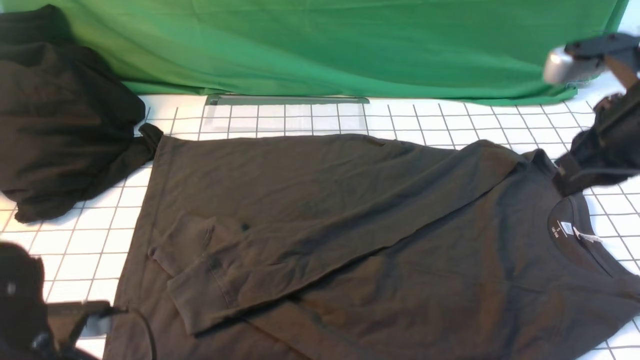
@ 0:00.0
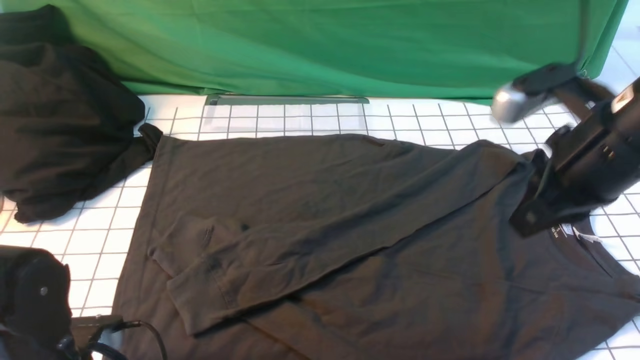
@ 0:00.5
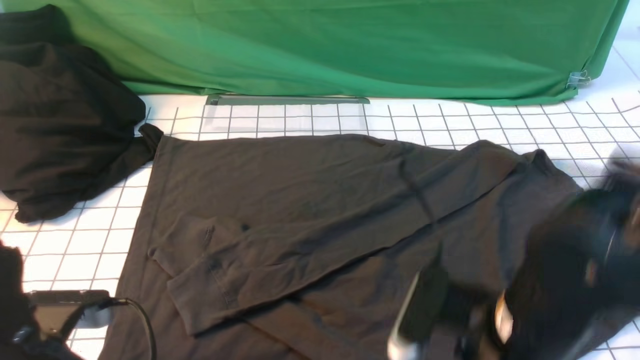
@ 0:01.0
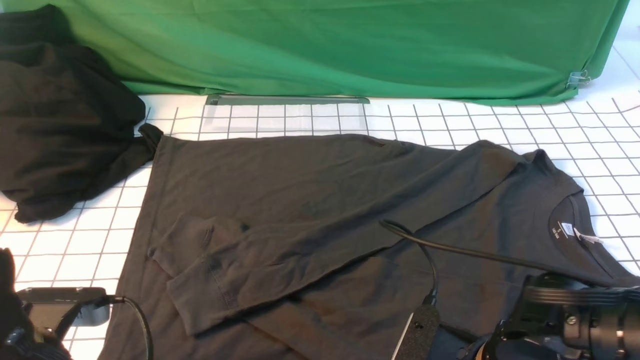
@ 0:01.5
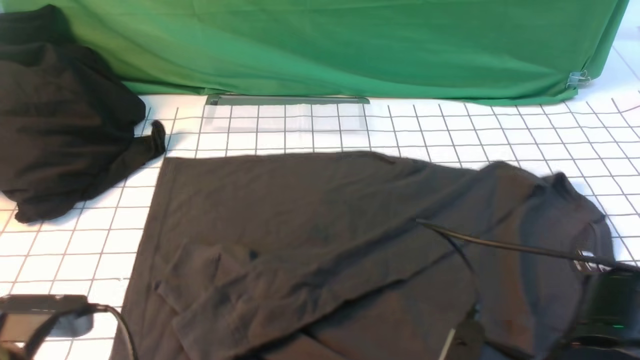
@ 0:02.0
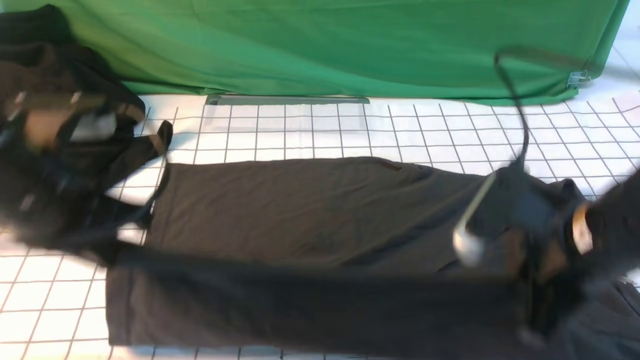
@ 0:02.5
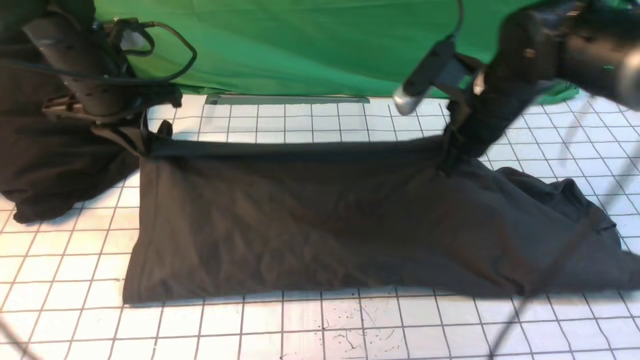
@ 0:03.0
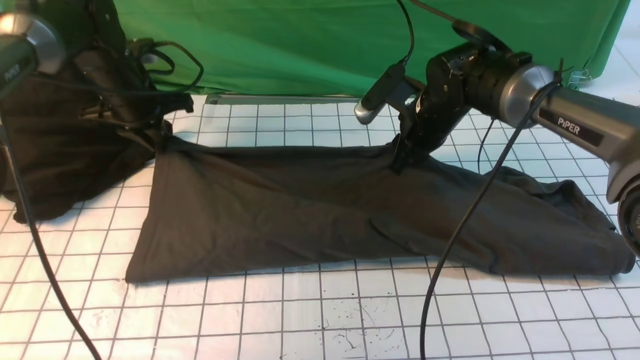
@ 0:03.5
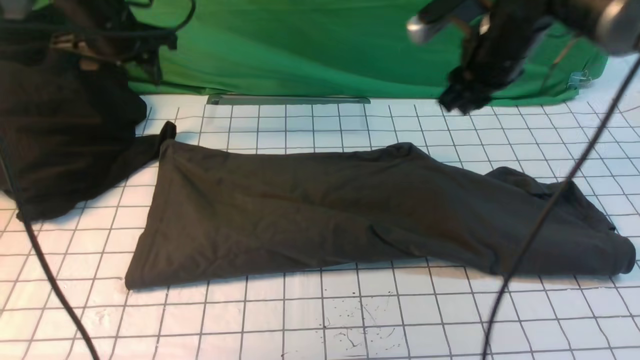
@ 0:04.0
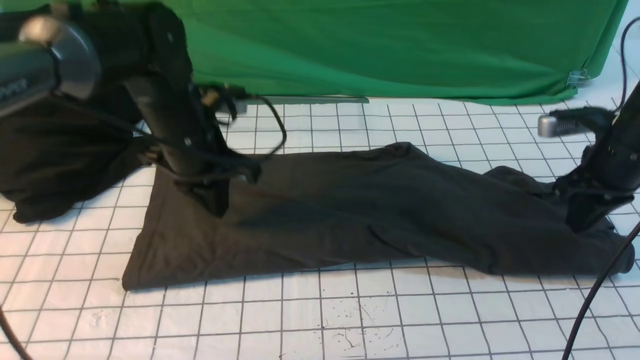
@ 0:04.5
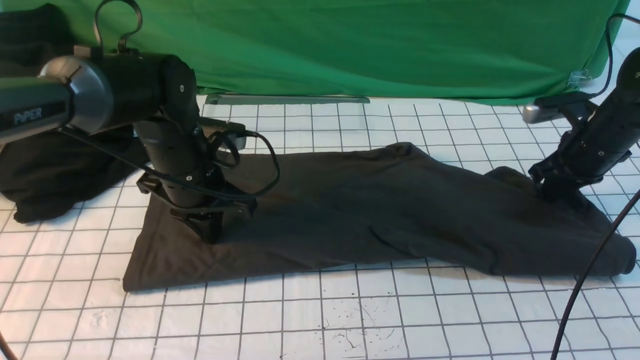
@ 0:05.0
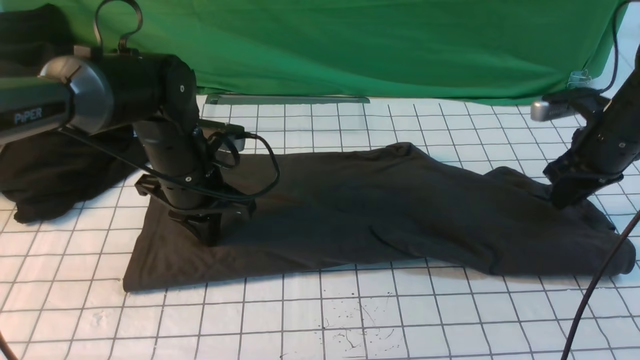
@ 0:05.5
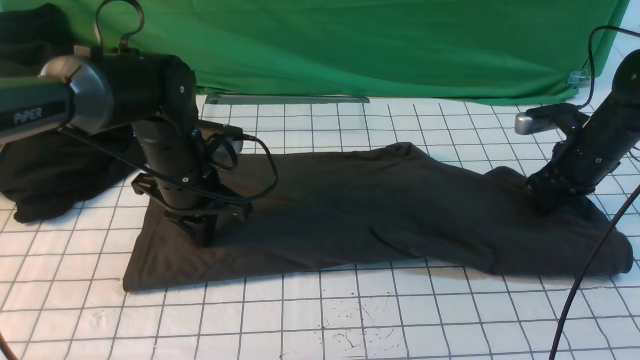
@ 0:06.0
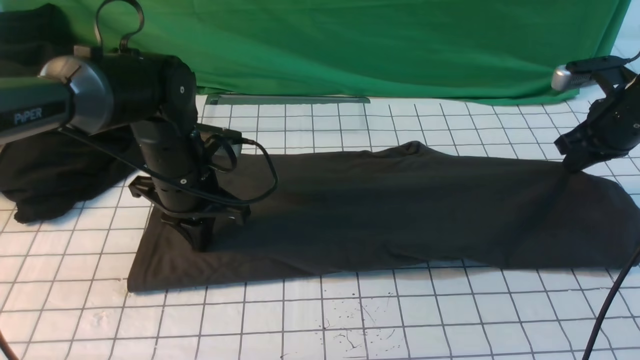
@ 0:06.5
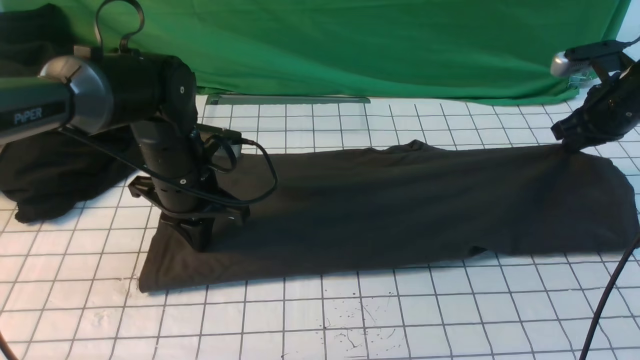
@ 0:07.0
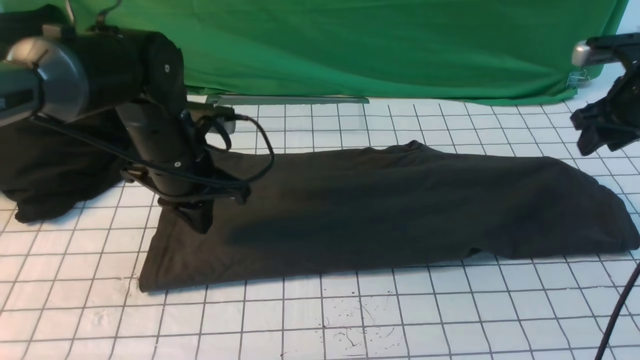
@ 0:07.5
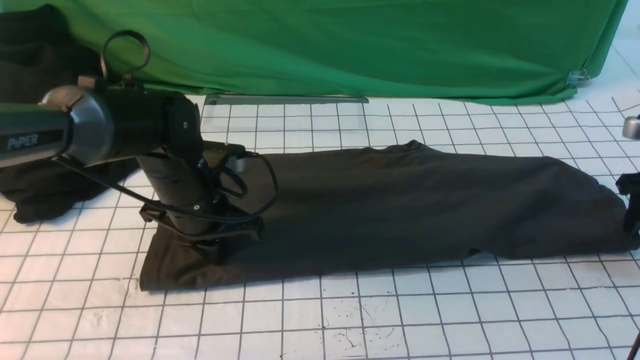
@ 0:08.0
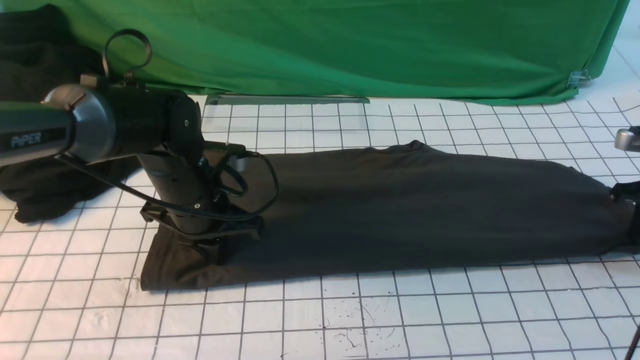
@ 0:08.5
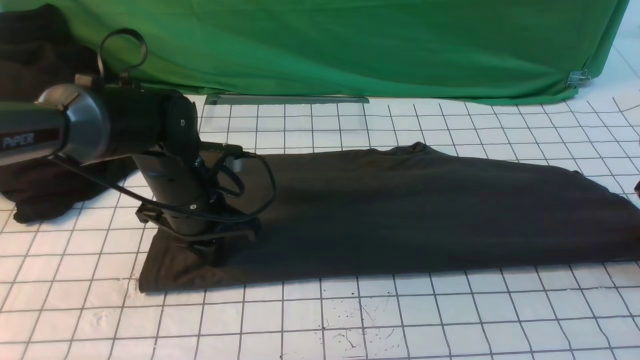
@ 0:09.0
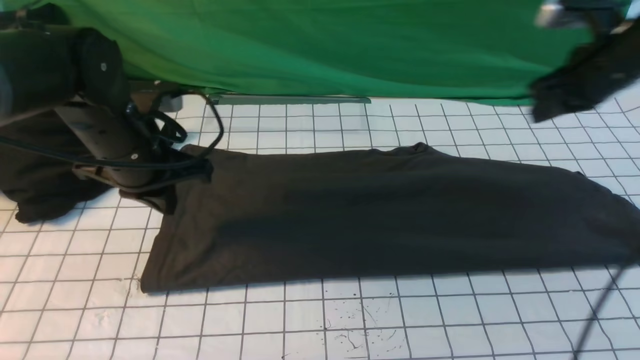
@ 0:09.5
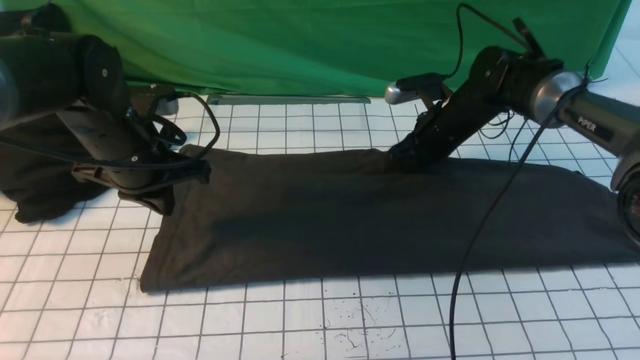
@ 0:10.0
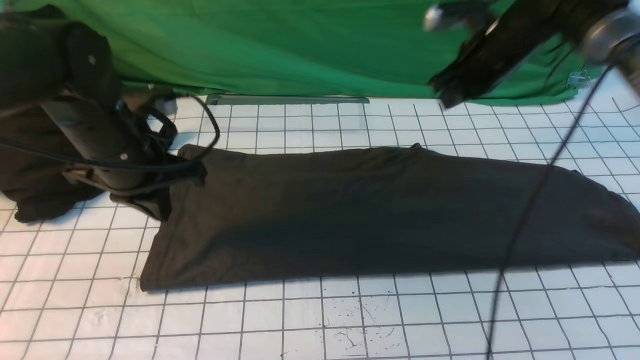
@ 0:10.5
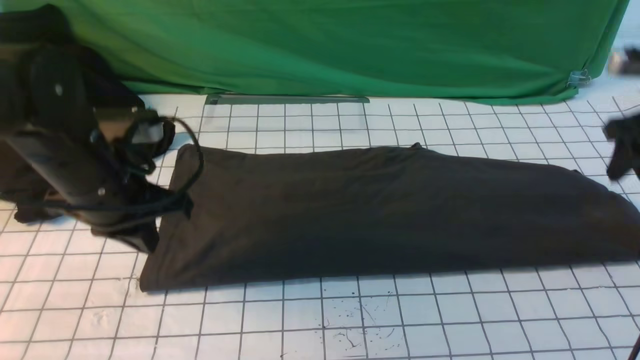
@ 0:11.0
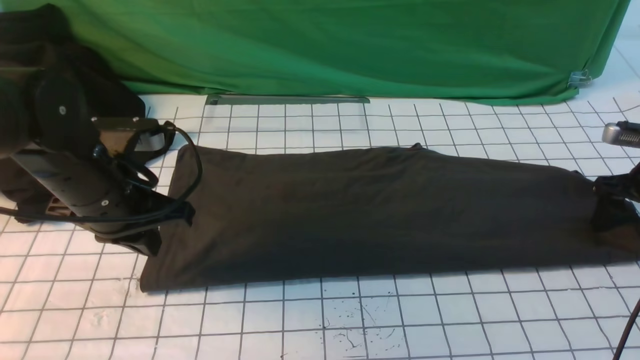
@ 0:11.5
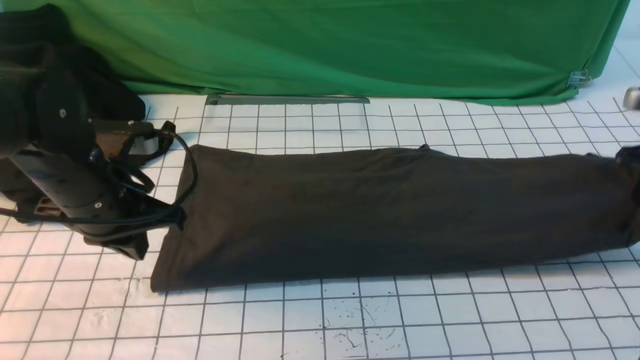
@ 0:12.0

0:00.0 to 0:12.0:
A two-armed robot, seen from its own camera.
Step, 0:02.0 to 0:03.5: use both arms to drag the lower edge of the fabric forward and fold it over the upper edge.
Step, 0:04.0 to 0:11.5: use the right arm to clamp the right edge of the fabric.
0:00.0 to 0:02.0: The left gripper moves upward, roughly 5 cm, and closes up, while the right gripper heads backward, downward and to the left, covering some 25 cm, and opens, then closes once more.
0:02.0 to 0:04.0: Both grippers move forward, about 35 cm. The right gripper opens its fingers. Meanwhile the left gripper opens up.
0:04.0 to 0:06.0: The right gripper goes approximately 15 cm to the right and downward. Meanwhile the left gripper shifts roughly 15 cm backward, downward and to the right, and closes up.
0:06.0 to 0:08.0: The right gripper heads to the right, covering about 10 cm, and opens.
0:08.0 to 0:10.0: The right gripper is displaced to the left and forward by about 25 cm, and closes up. Meanwhile the left gripper moves upward and to the left, roughly 10 cm.
0:10.0 to 0:12.0: The left gripper shifts about 5 cm backward; the right gripper travels to the right and backward by roughly 25 cm, and opens, then closes once more.

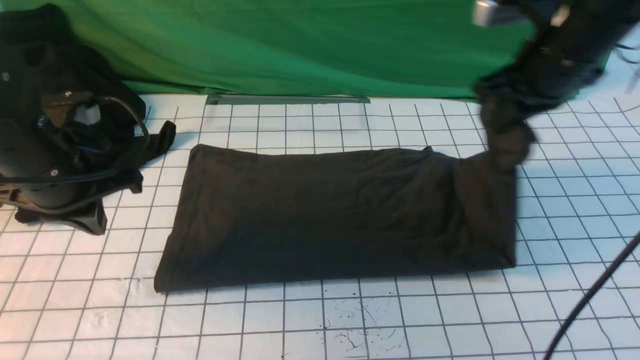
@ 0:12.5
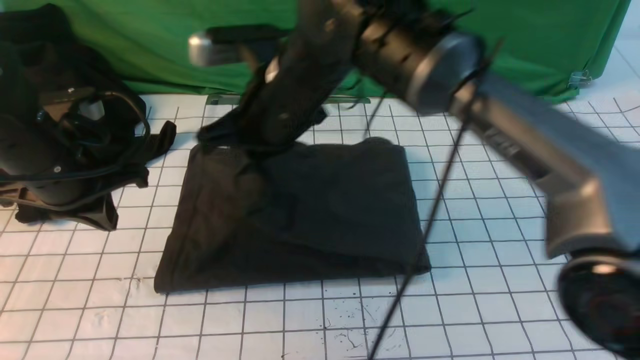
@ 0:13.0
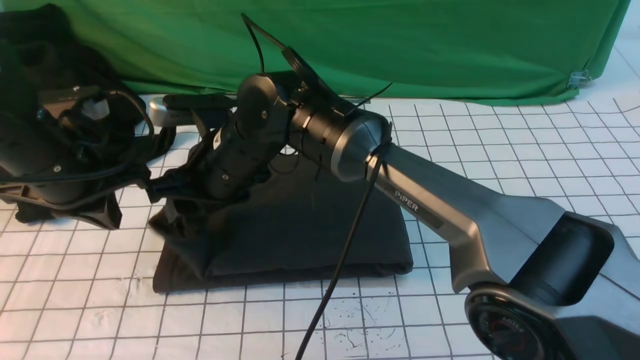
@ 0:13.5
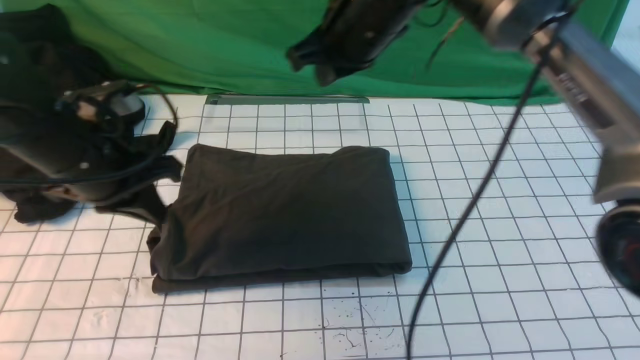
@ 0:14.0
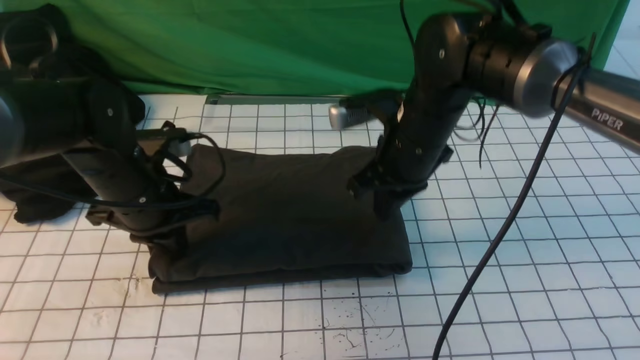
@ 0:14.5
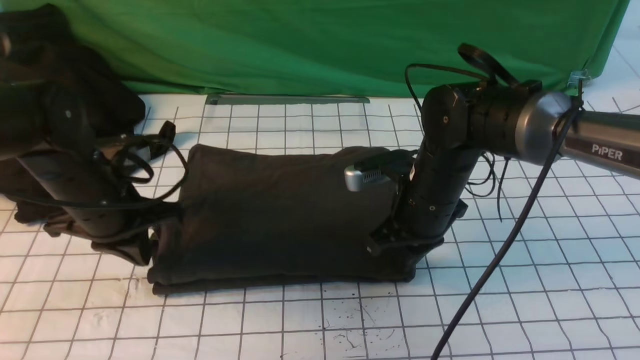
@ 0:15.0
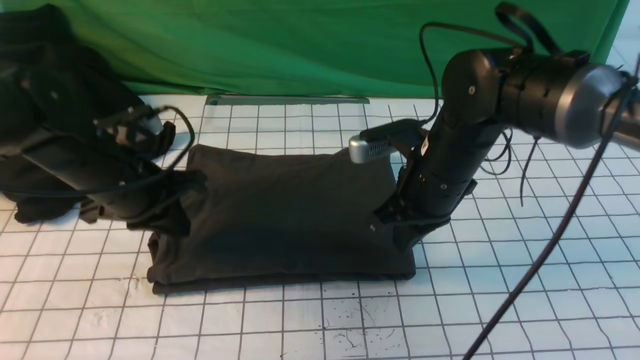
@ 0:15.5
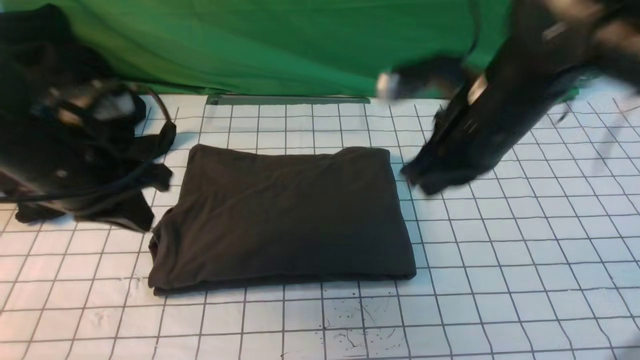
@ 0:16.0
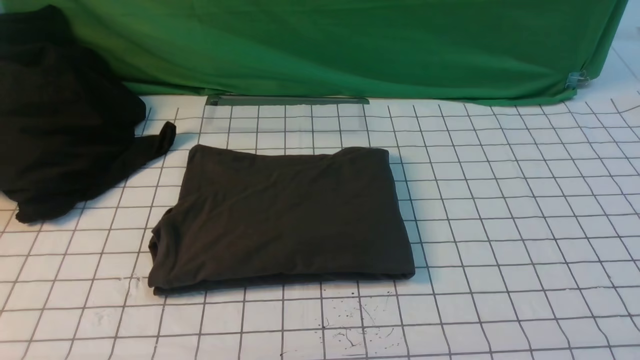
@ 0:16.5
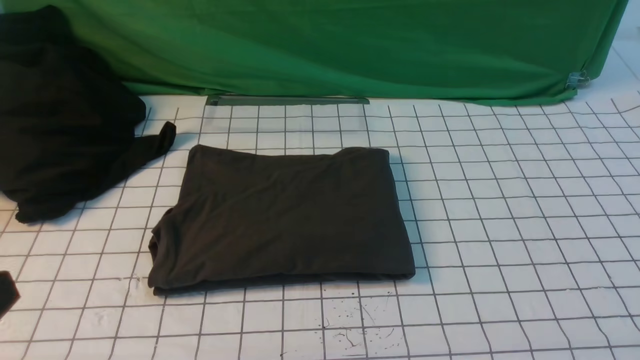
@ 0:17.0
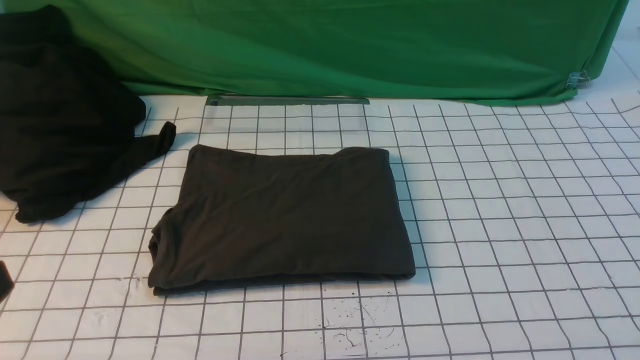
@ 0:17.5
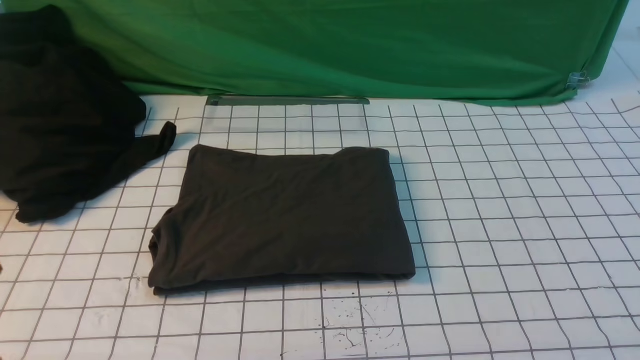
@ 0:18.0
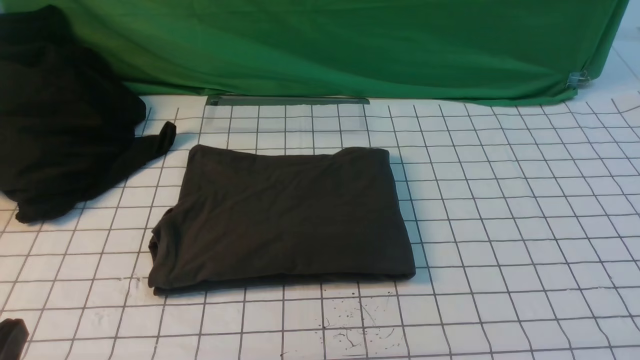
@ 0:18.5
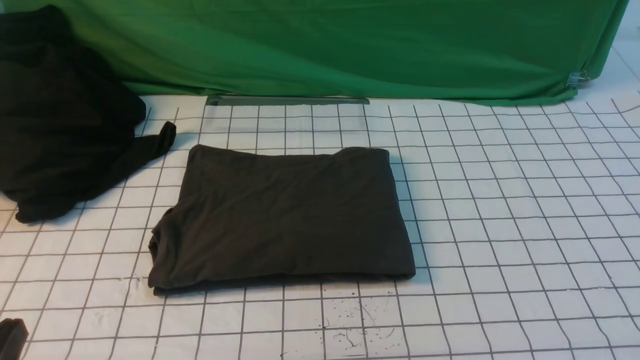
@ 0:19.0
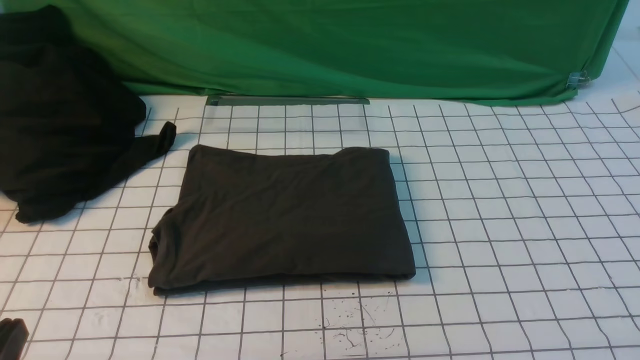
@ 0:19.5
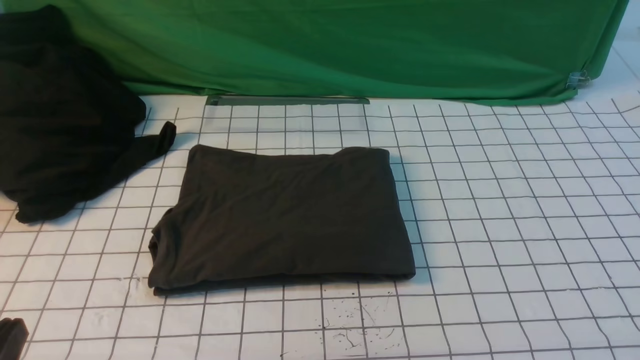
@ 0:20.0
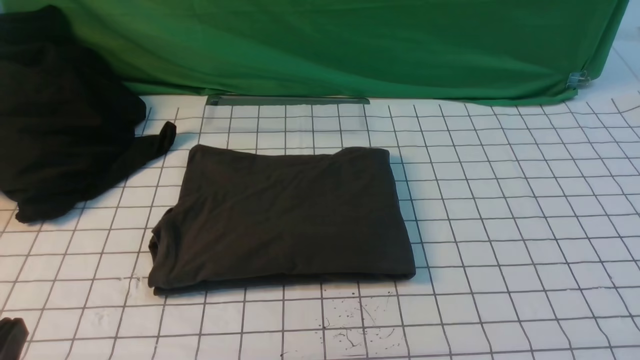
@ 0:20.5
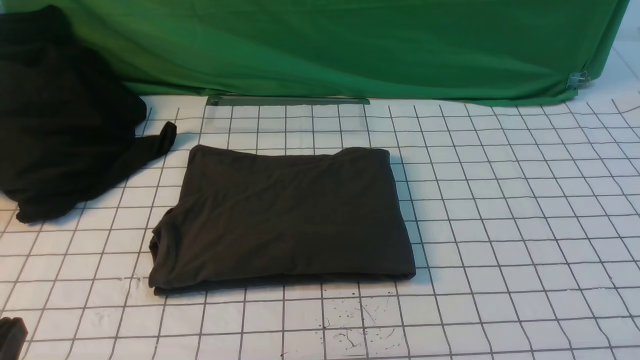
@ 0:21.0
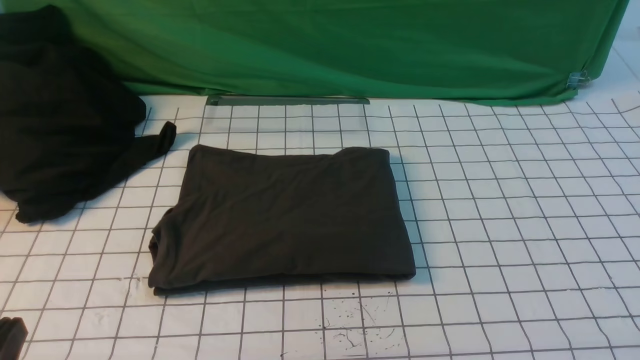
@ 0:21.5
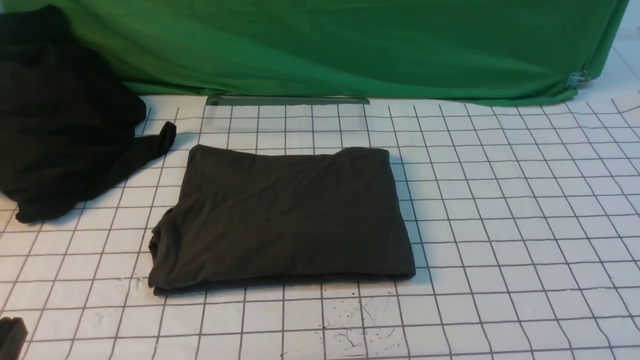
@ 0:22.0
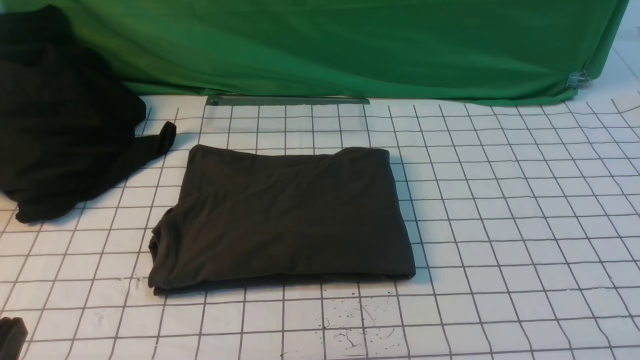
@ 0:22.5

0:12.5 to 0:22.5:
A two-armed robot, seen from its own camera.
Step, 0:12.5 to 0:13.5: use the right arm to drag the right edge of the fabric to the left and folds it over the left edge.
0:12.5 to 0:14.5: The right gripper heads downward and to the left, covering about 15 cm, and opens, then closes once more; the left gripper is displaced to the right by some 5 cm.
0:14.5 to 0:16.5: The right gripper heads backward, upward and to the right, covering about 40 cm, while the left gripper goes approximately 35 cm backward and upward.
